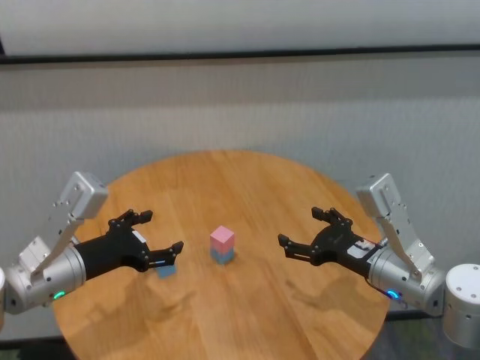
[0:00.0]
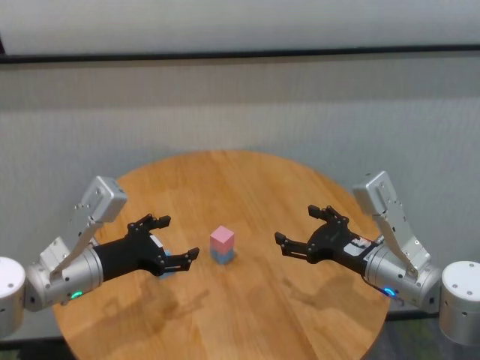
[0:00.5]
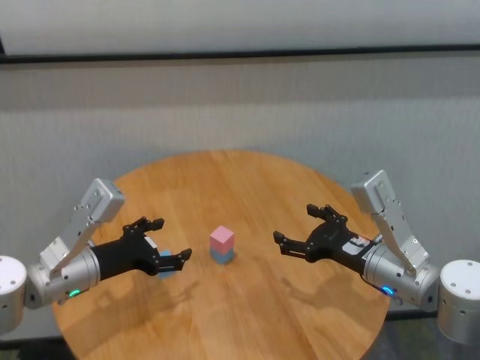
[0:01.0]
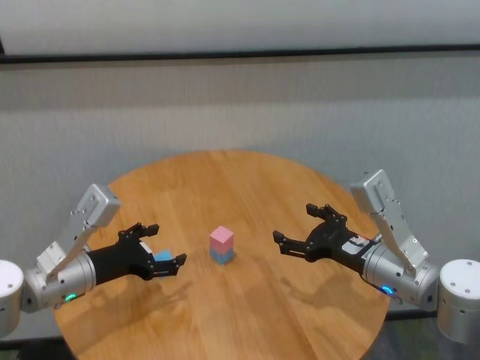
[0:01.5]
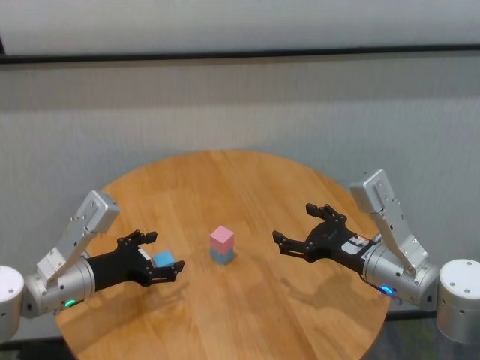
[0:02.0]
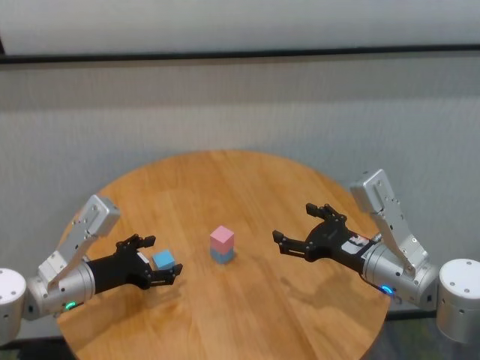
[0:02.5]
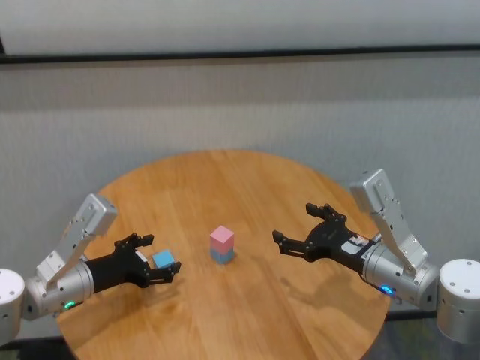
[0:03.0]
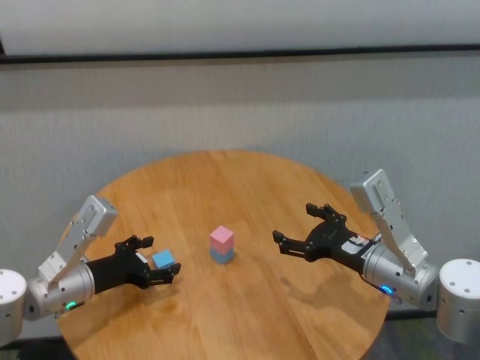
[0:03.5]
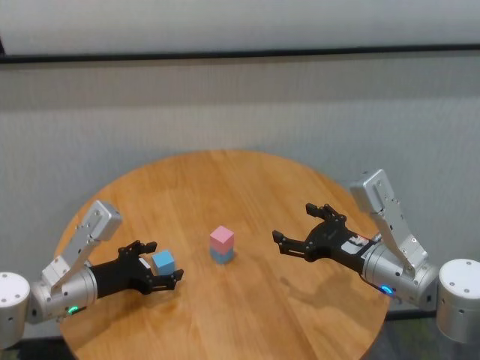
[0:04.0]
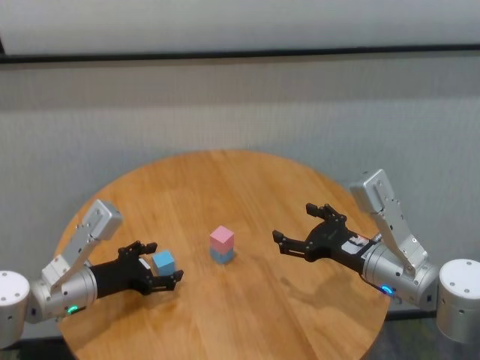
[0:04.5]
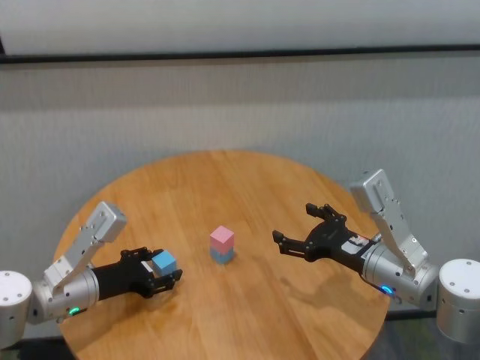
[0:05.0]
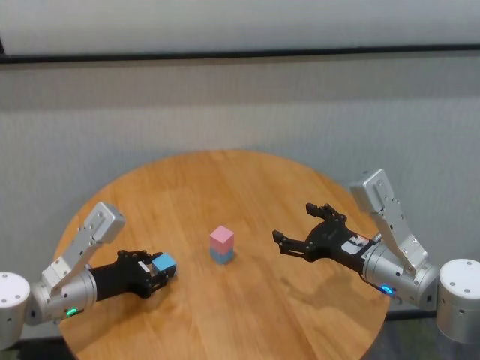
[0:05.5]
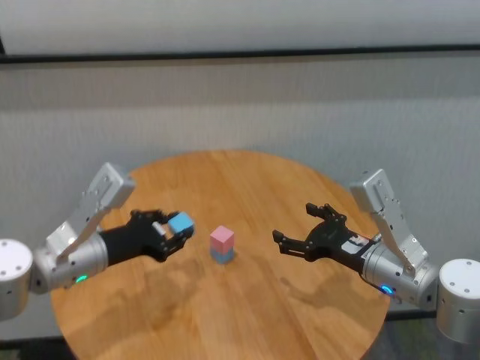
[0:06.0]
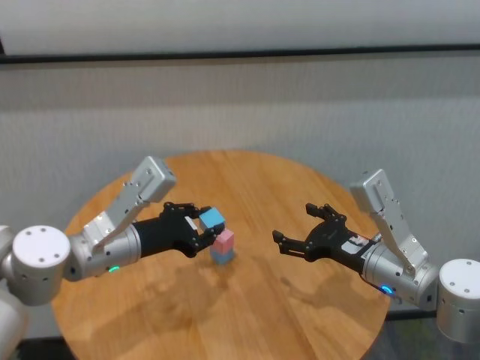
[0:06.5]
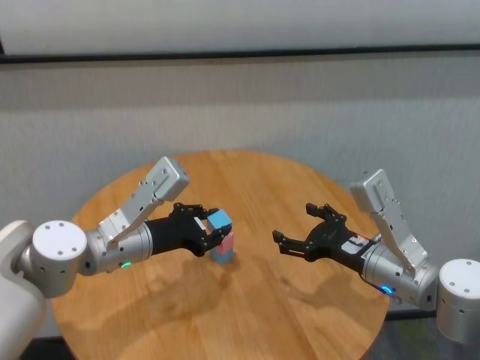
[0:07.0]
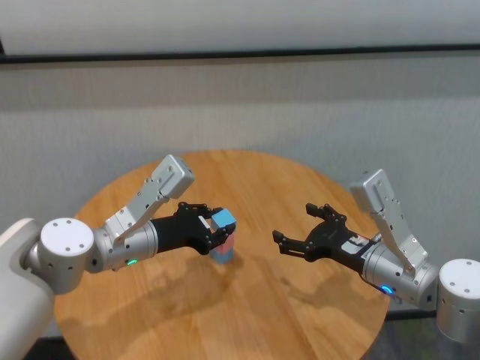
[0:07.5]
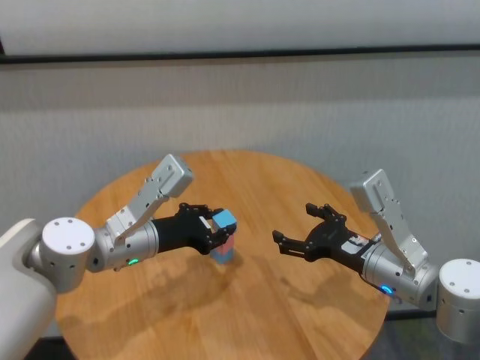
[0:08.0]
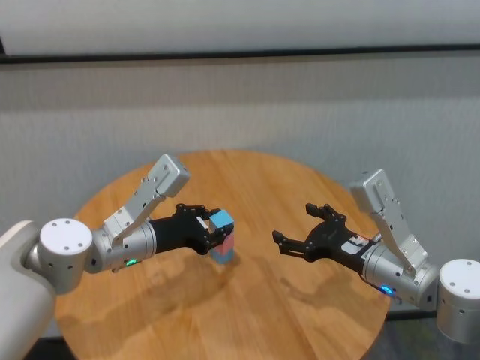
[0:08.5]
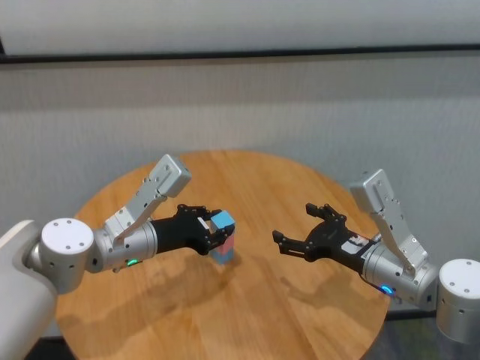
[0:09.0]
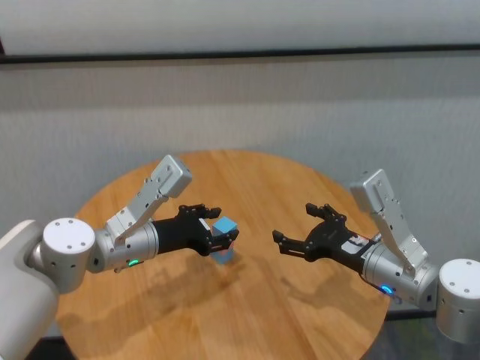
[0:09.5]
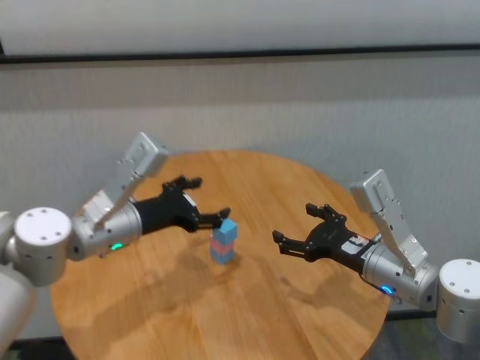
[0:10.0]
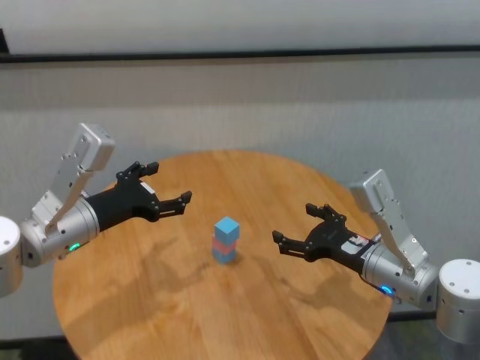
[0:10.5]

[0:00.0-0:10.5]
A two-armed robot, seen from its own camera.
Task of the whole recording: stack building blocks on the table.
Step, 0:00.0 to 0:09.5: Place the blue building block on the pink building blocks with left gripper.
